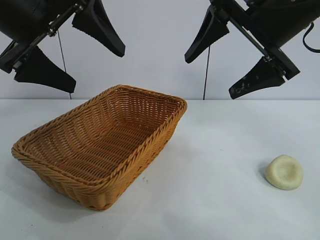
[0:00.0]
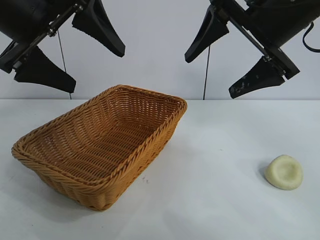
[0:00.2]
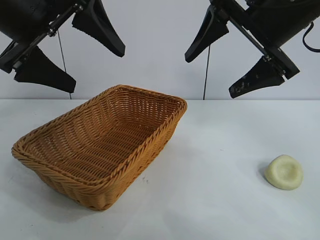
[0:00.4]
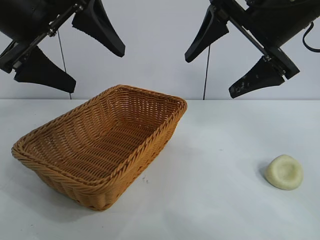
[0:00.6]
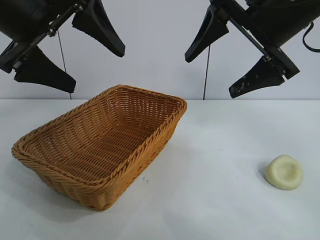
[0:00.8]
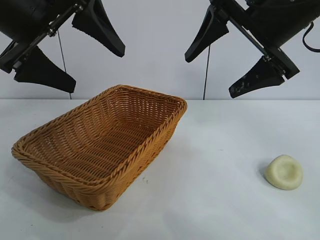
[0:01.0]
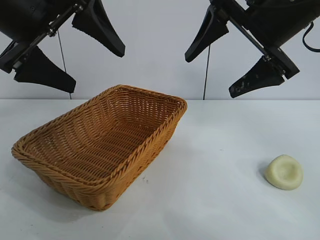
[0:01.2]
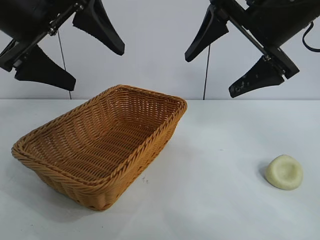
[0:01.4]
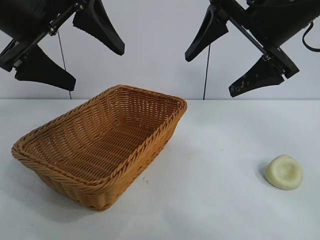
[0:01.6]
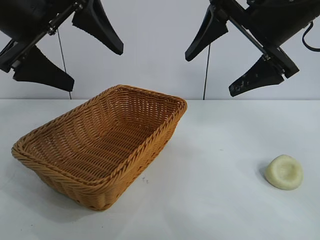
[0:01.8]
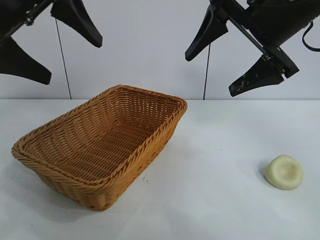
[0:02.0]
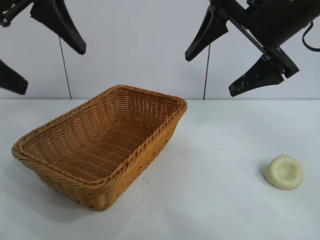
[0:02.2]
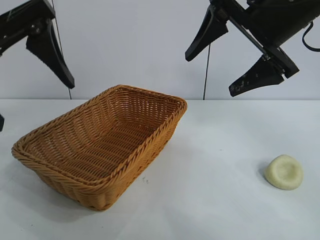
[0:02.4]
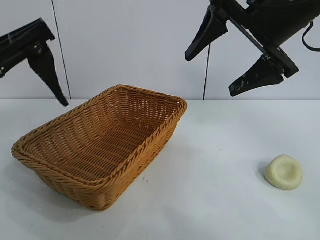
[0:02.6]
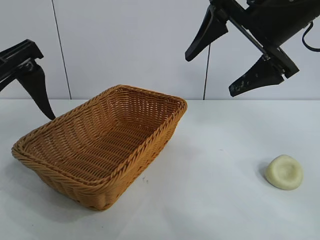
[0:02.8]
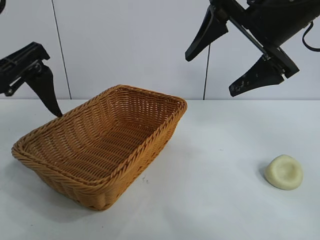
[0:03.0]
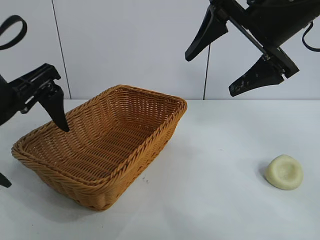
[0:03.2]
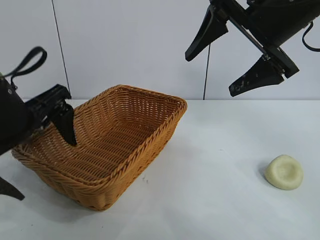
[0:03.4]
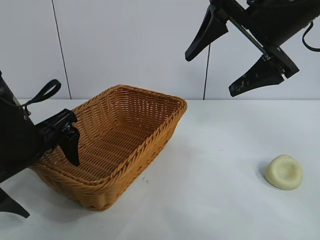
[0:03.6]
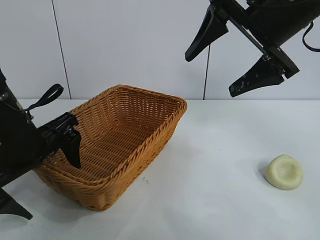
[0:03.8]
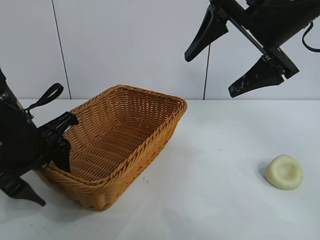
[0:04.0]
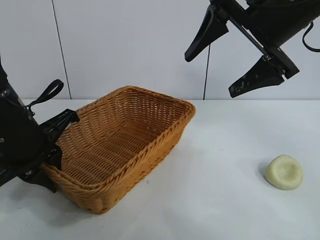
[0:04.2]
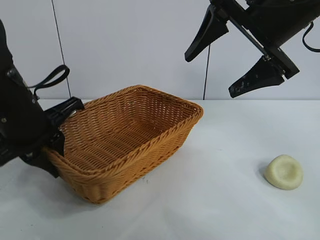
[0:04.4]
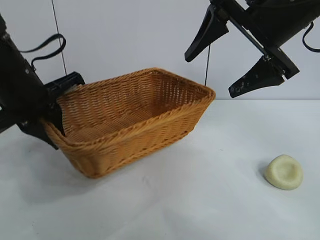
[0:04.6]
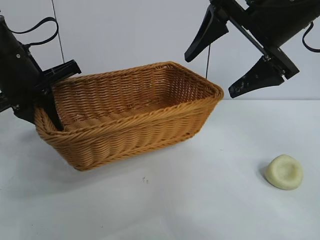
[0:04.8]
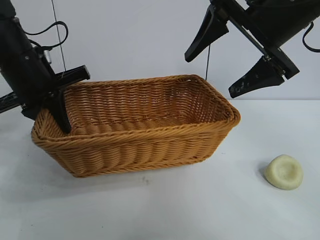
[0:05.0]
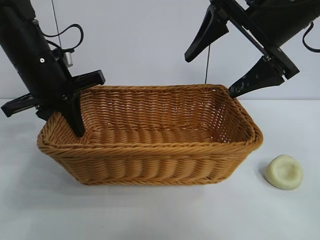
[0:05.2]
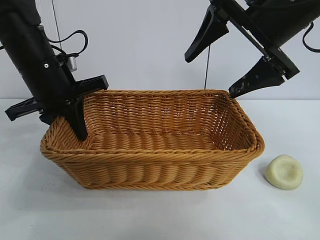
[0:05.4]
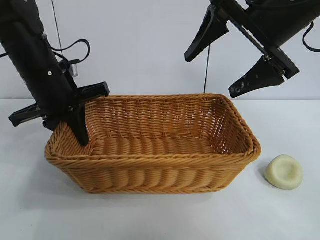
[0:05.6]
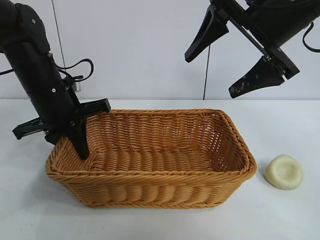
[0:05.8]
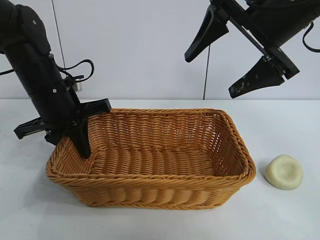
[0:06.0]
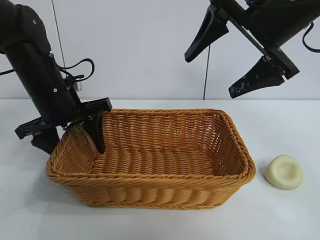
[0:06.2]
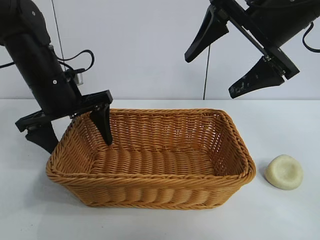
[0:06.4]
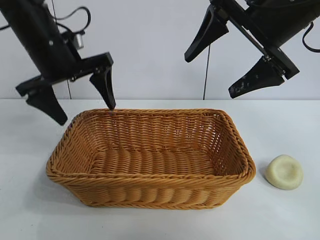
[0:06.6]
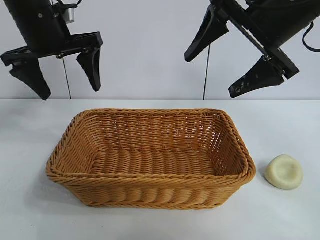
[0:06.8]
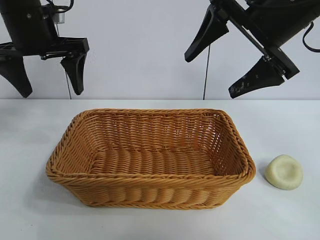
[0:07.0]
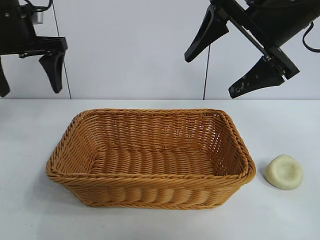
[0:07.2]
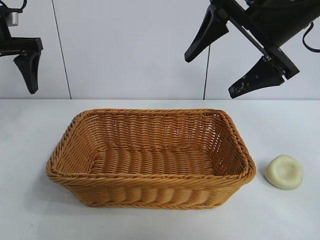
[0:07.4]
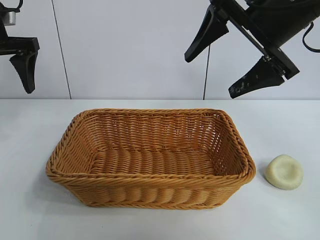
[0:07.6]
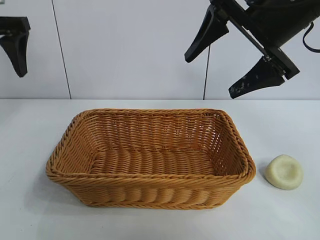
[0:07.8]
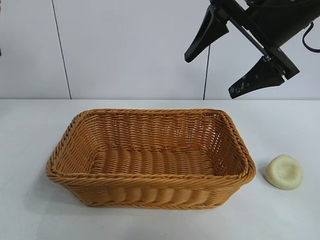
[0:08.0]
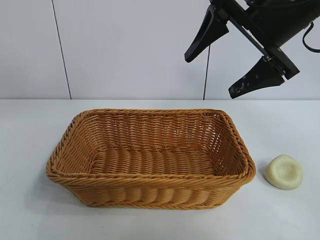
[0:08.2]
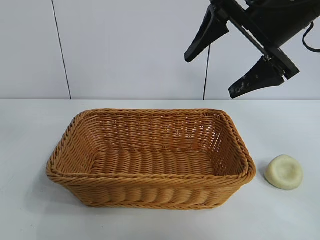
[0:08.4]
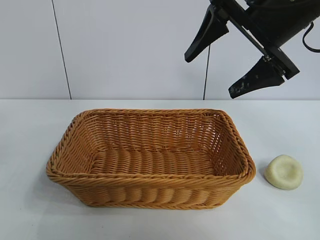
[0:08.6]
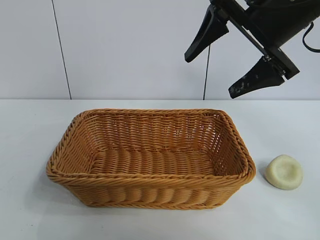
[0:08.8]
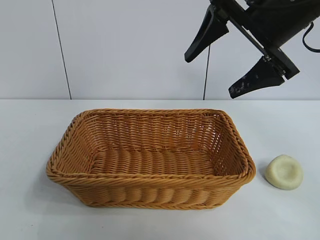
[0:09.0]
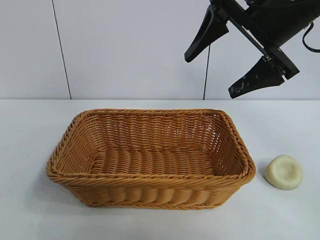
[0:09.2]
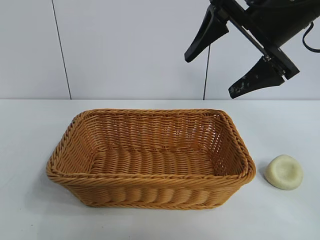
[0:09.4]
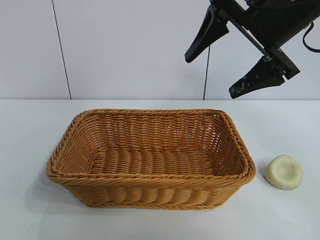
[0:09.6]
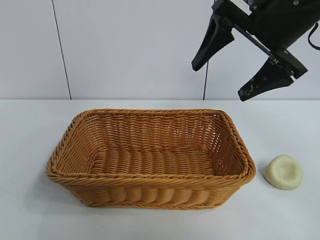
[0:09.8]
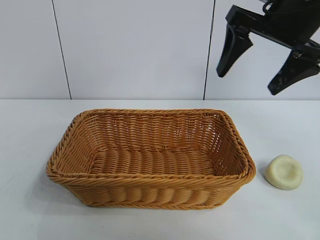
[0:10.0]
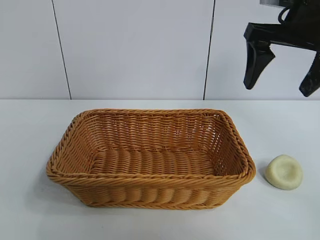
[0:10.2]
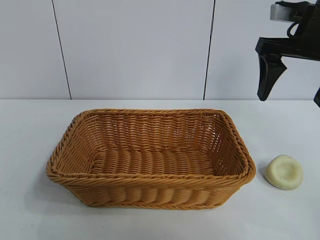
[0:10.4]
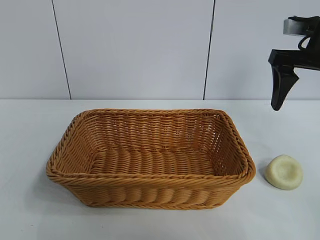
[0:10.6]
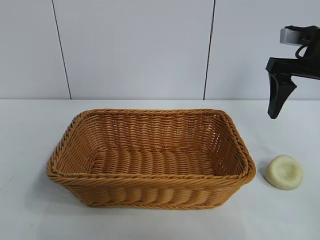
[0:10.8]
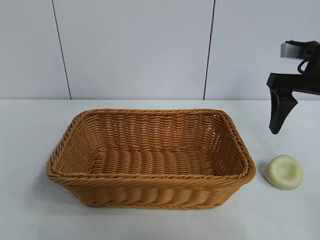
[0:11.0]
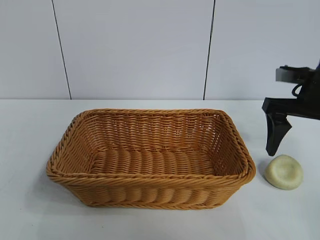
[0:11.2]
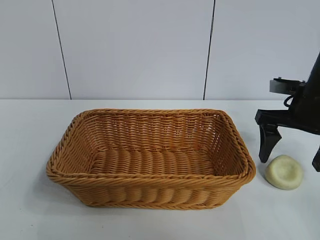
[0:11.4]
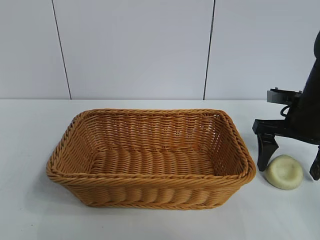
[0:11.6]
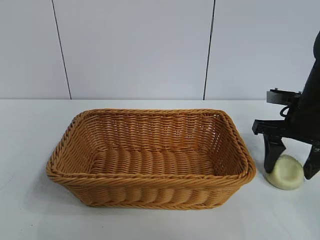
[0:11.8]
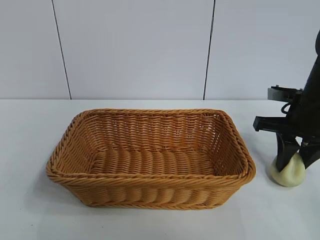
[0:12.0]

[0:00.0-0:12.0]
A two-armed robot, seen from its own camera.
Task of the whole recording: pick up the egg yolk pastry and put it into the basket.
Step, 0:01.4 to 0:04.0: Grasp the basket with left gripper.
Step, 0:04.4 to 0:06.2: Place the basket in the center of view with left gripper.
Step, 0:06.4 to 0:11.8: Grasp egg yolk pastry with right gripper.

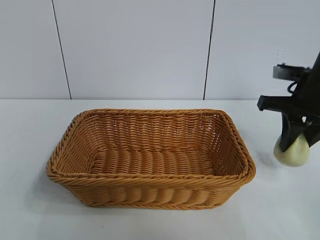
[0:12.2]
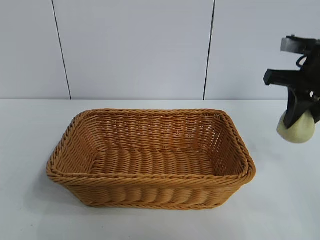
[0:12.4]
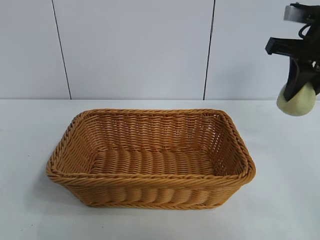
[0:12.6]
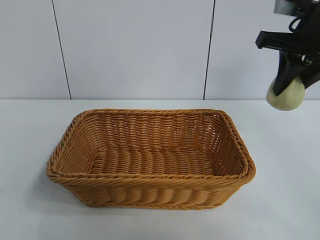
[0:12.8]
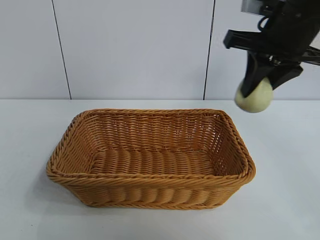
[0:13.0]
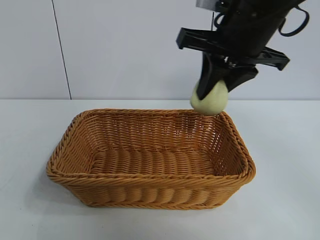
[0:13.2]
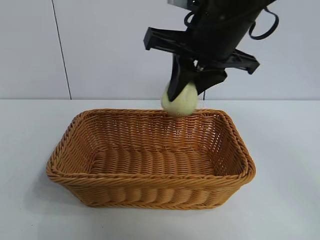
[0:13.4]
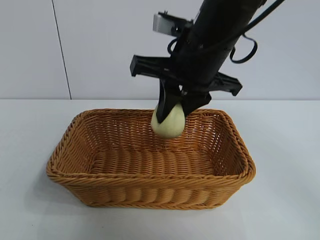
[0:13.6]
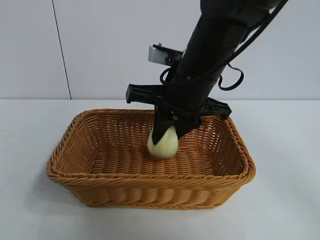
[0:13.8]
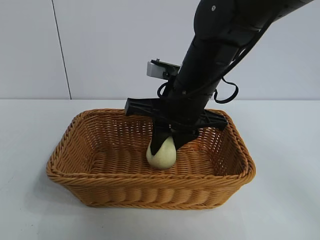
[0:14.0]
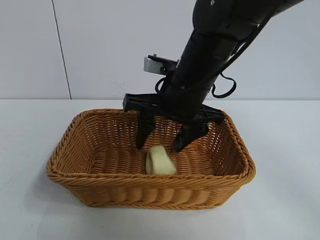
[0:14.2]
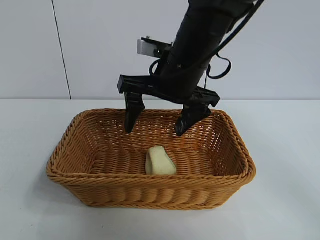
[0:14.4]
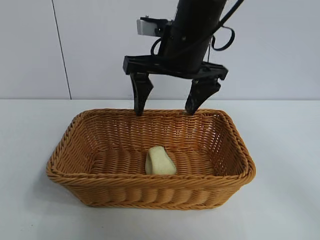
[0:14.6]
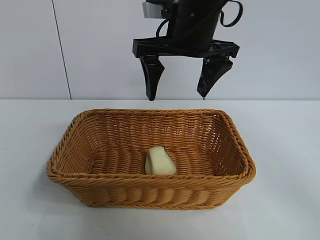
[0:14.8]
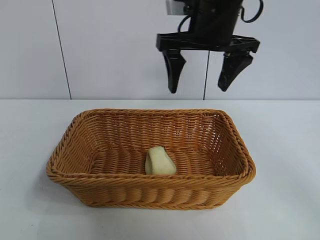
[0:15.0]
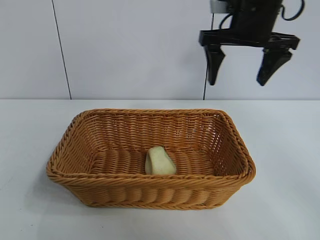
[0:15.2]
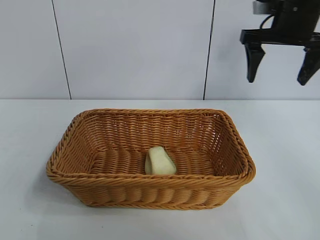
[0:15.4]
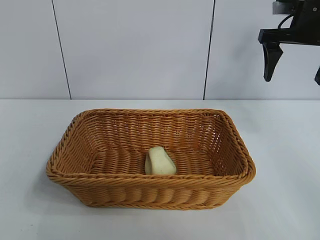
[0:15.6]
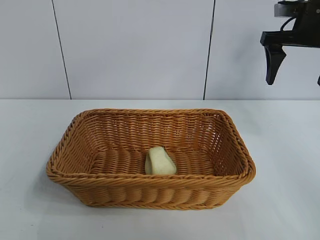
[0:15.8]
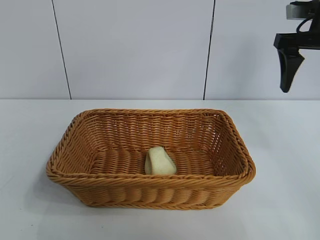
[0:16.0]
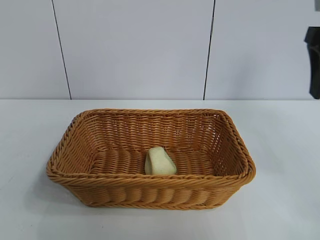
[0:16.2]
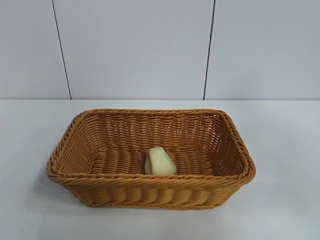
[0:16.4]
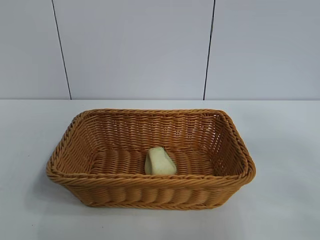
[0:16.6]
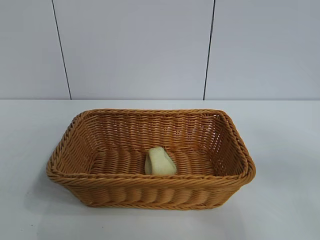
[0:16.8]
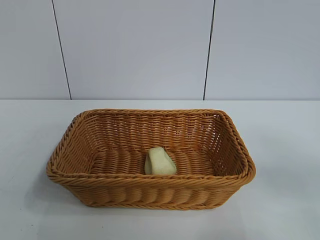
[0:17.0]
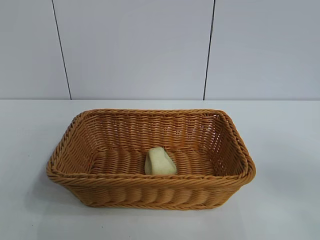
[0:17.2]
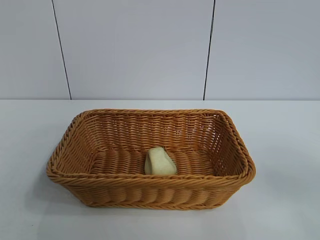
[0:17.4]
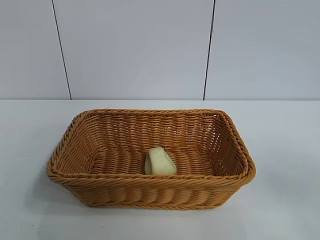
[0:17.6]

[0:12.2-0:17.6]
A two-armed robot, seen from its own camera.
Task of the whole recording: pick up the egg yolk pastry and put it into the basket.
Step, 0:12.2 to 0:14.2: Place the egg yolk pastry in the basket with right gripper.
